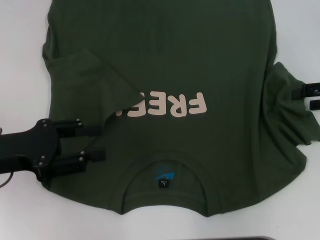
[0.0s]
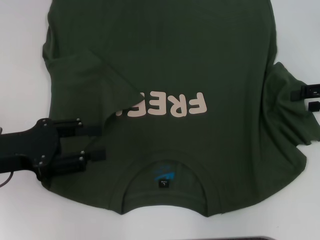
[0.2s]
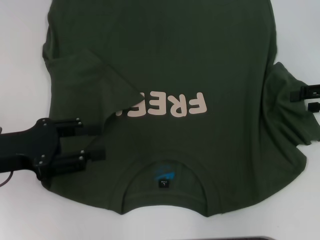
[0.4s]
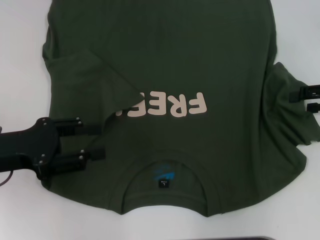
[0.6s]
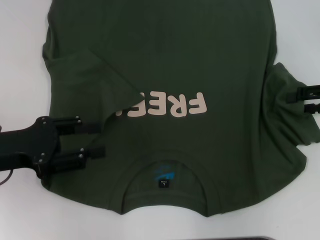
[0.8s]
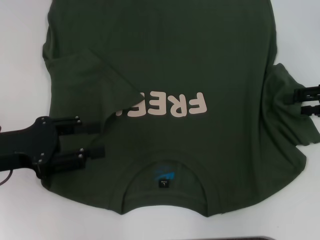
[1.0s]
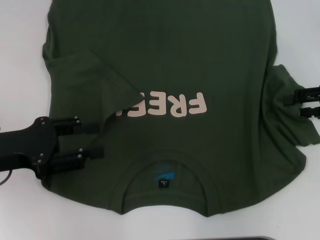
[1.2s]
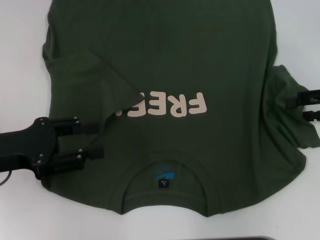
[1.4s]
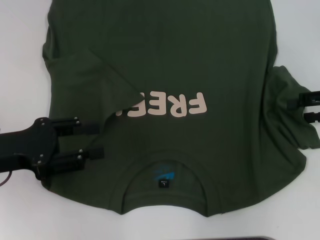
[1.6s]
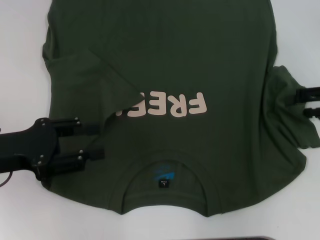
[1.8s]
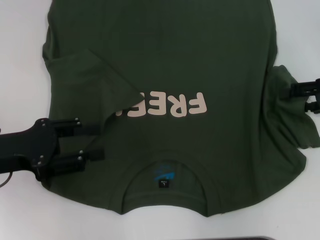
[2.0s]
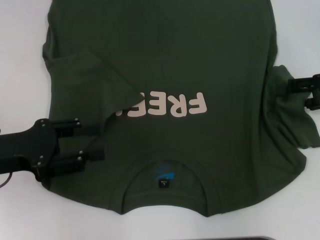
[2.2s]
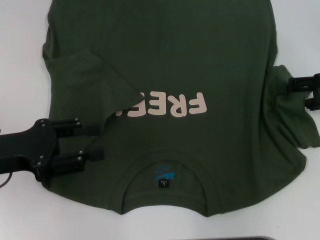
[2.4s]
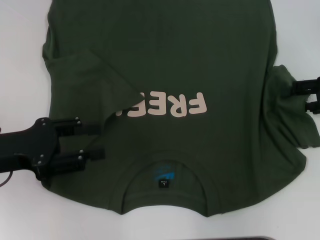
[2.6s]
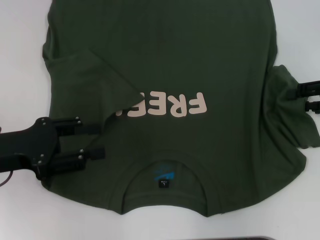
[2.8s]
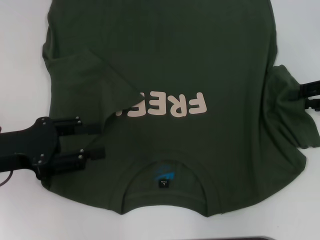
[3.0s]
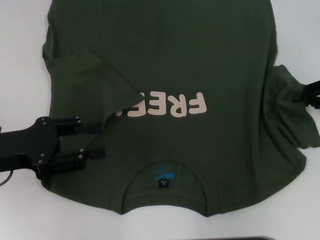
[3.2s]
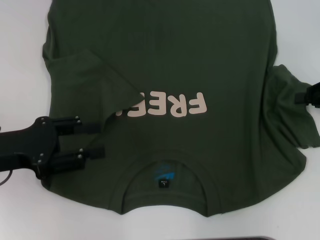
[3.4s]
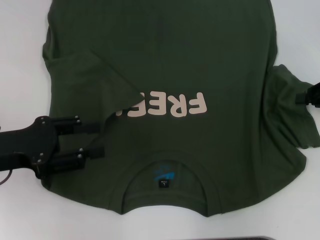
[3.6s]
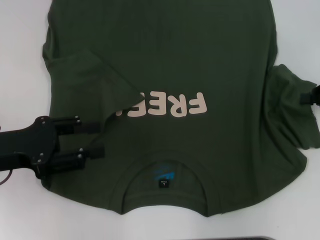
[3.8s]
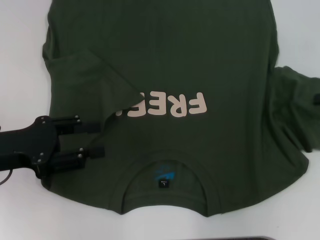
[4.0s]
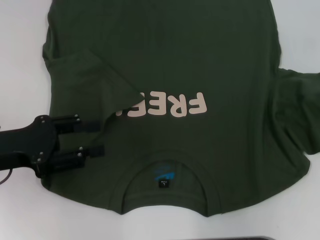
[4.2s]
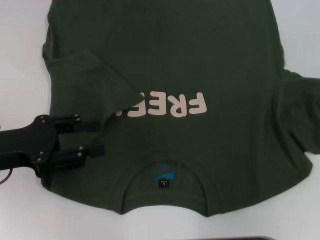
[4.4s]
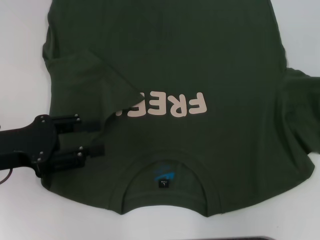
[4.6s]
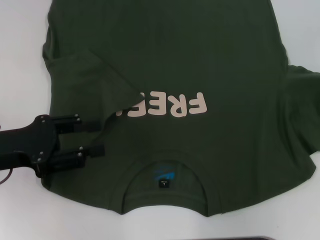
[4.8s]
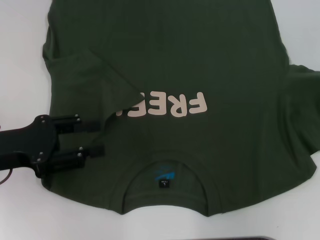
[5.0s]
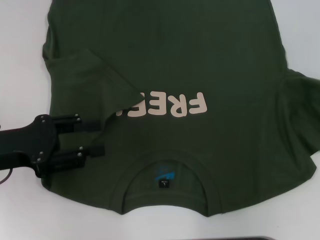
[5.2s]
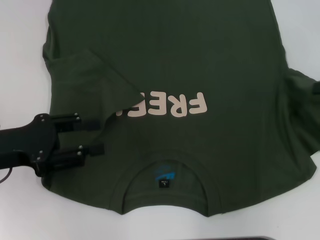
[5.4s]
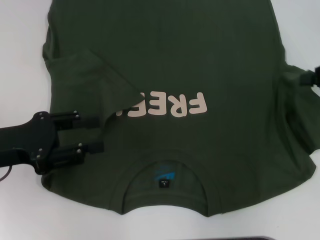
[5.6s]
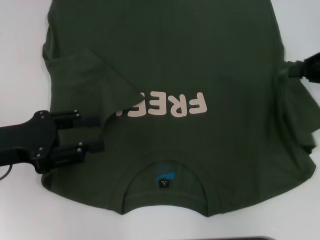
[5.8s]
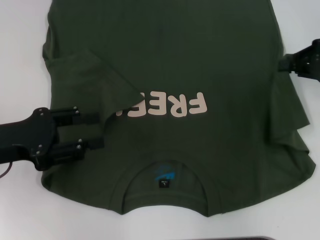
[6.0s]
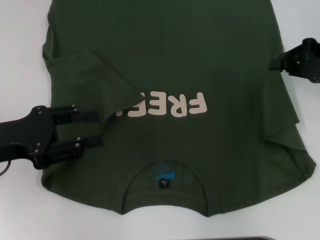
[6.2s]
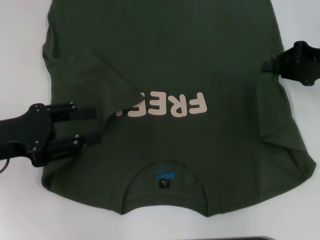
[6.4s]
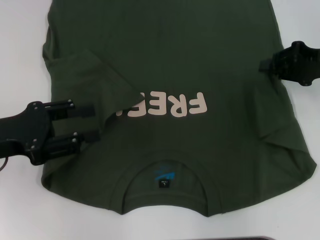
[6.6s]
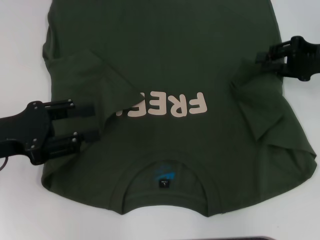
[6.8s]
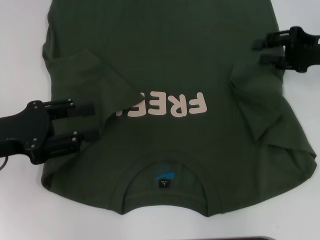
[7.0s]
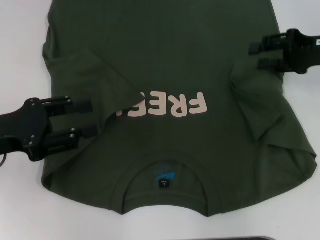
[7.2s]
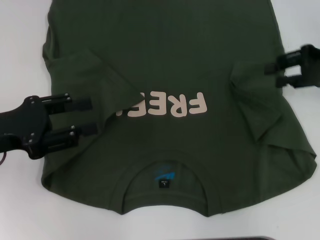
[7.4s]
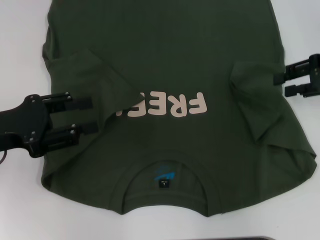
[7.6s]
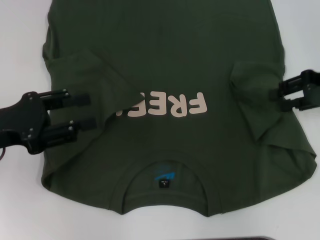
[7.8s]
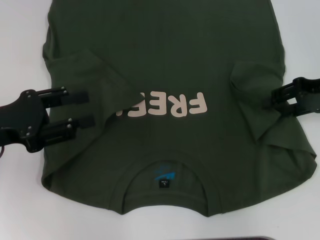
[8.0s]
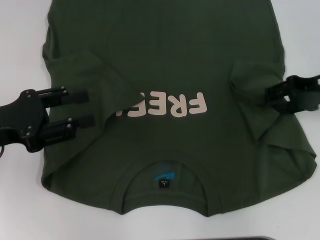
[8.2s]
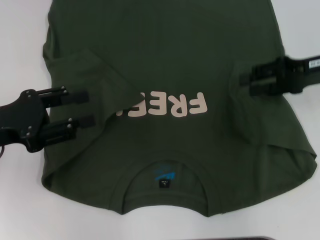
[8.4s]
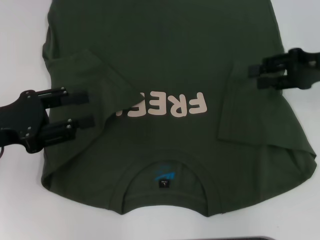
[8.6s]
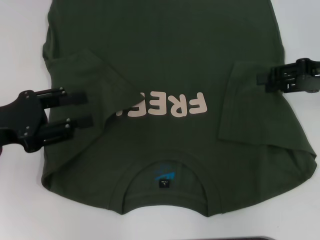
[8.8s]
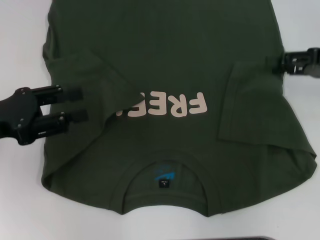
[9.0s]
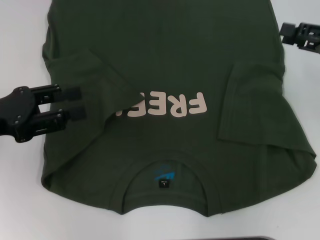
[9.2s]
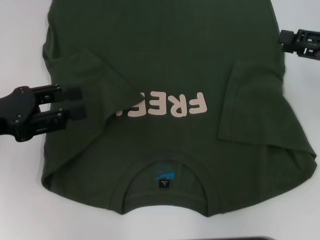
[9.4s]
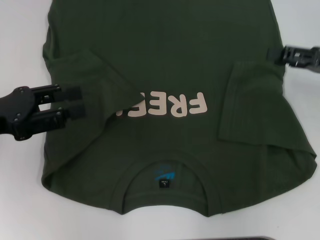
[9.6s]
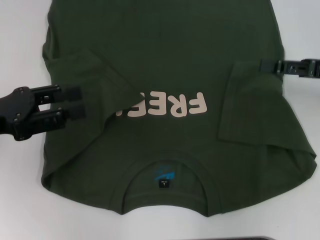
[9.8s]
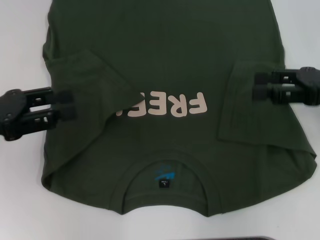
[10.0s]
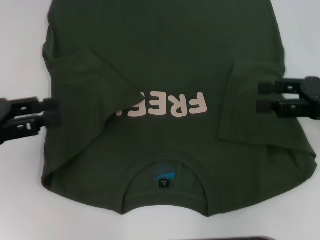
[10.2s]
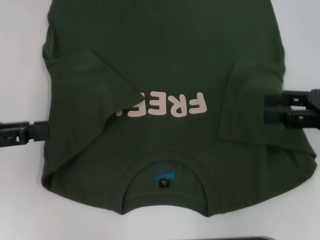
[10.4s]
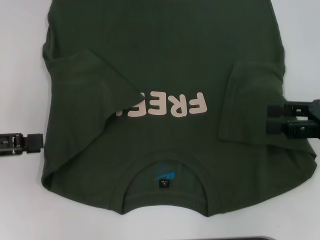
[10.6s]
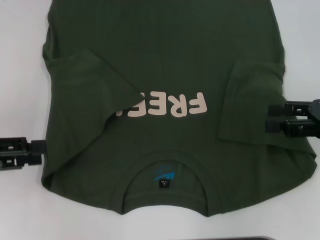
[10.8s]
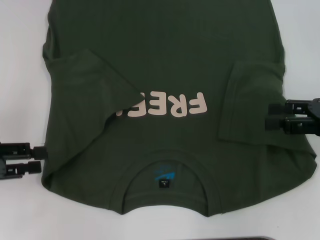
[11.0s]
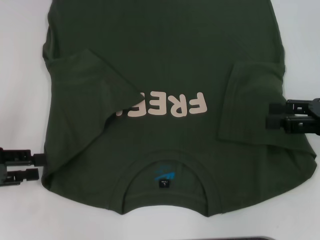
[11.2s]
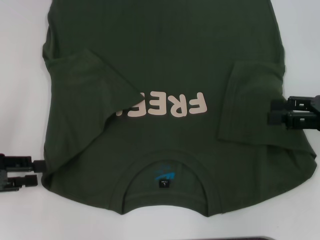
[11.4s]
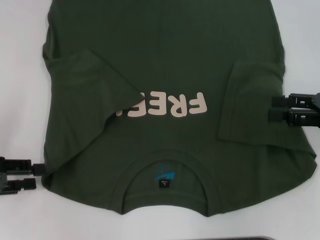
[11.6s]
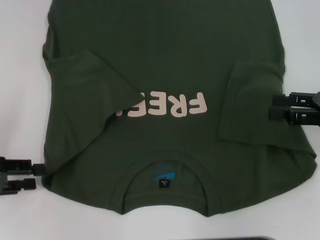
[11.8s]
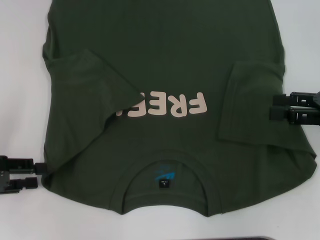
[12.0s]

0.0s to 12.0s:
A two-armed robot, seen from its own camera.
Step, 0.0s to 10.2s: Fold the bottom right sleeve with your right hand.
0.0s to 3.0s: The grippers stay close to where they were, moving slightly.
3.0s to 4.4s: The right gripper shifts by some 5 cm, and closes its fingers.
4.4s to 6.0s: The right gripper heads to the left, covering some 5 cm.
6.0s to 7.6s: The right gripper opens.
9.0s to 10.4s: The right gripper shifts some 5 cm backward.
10.4s to 12.0s: The left gripper moves downward, roughly 5 cm.

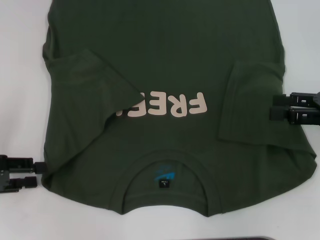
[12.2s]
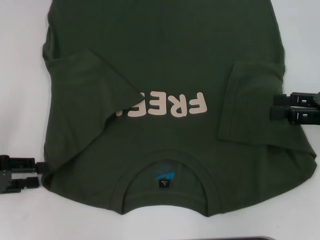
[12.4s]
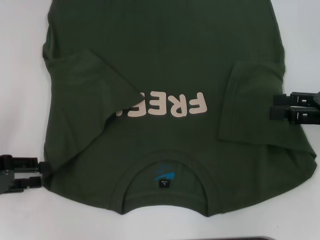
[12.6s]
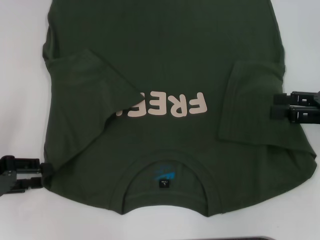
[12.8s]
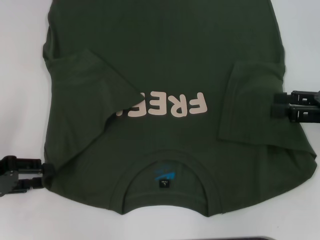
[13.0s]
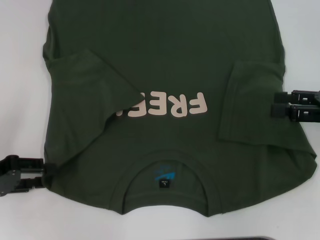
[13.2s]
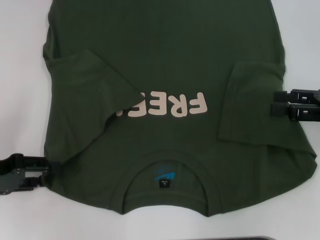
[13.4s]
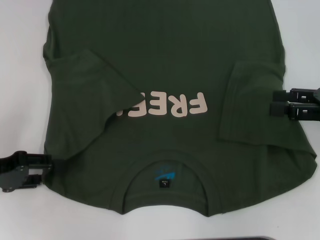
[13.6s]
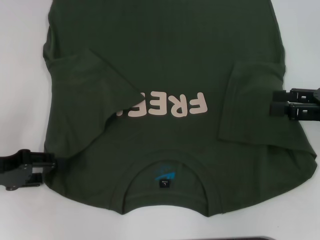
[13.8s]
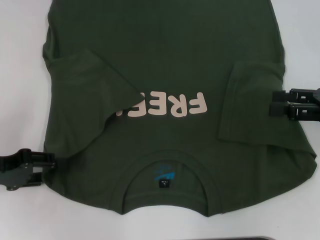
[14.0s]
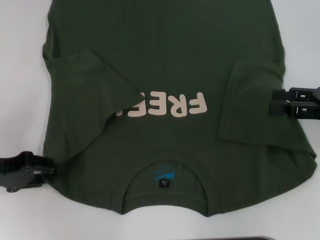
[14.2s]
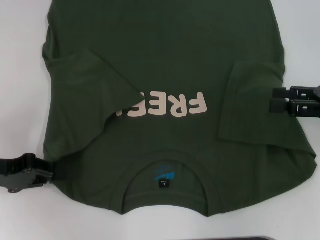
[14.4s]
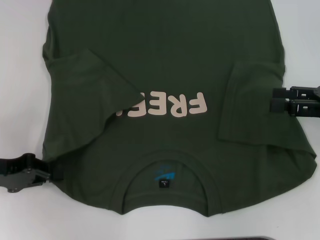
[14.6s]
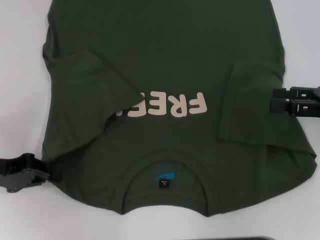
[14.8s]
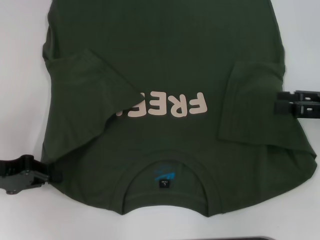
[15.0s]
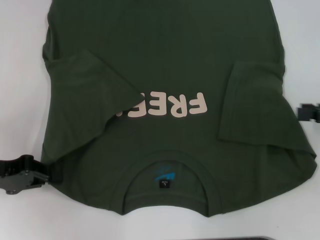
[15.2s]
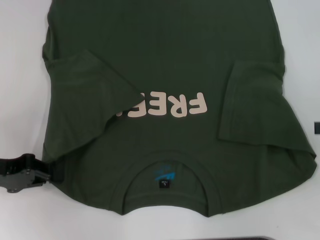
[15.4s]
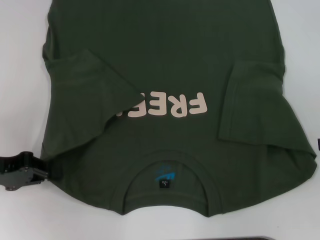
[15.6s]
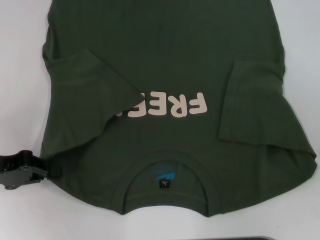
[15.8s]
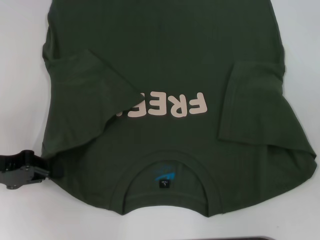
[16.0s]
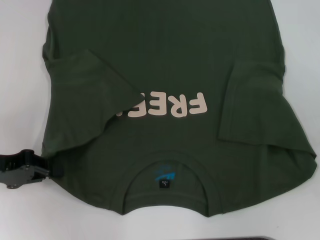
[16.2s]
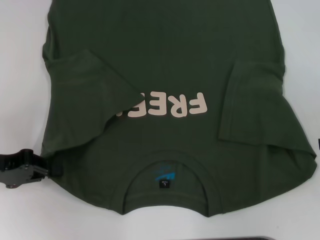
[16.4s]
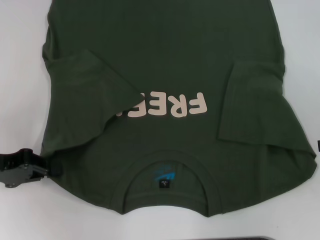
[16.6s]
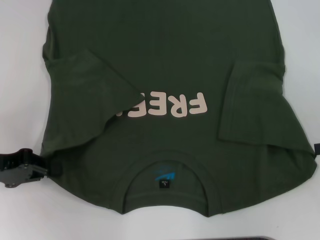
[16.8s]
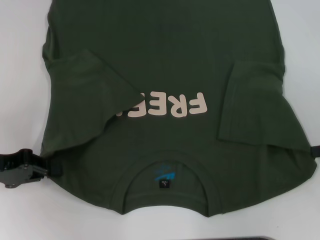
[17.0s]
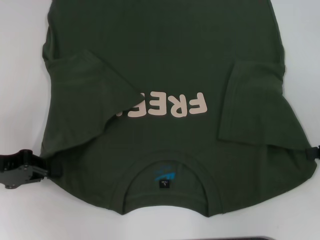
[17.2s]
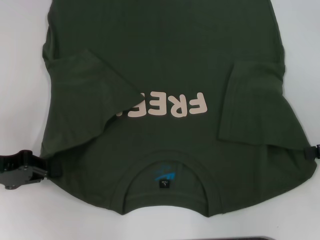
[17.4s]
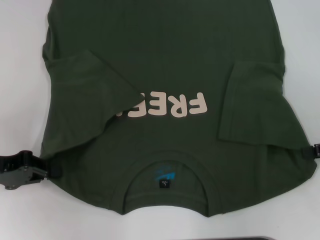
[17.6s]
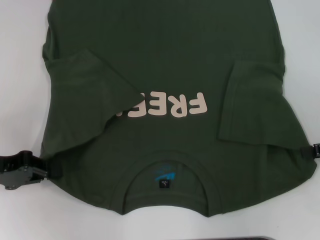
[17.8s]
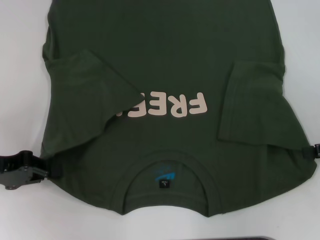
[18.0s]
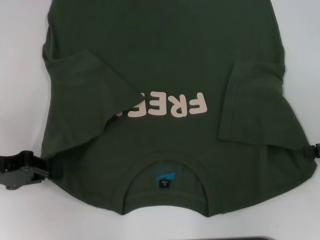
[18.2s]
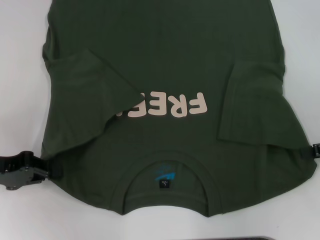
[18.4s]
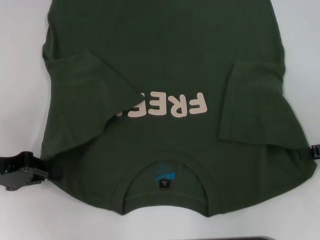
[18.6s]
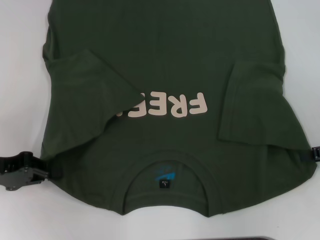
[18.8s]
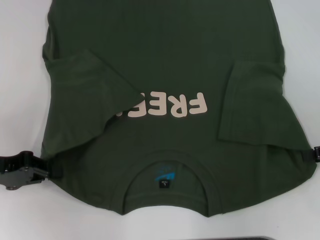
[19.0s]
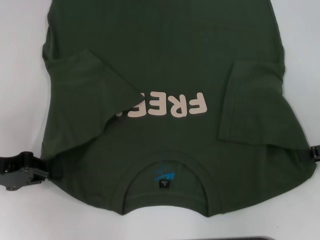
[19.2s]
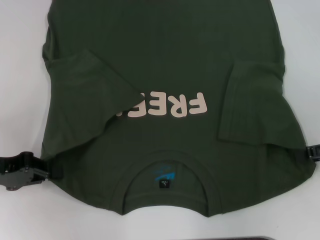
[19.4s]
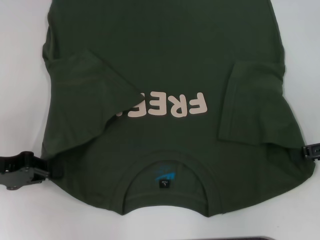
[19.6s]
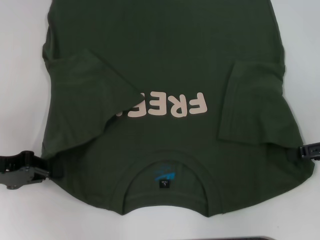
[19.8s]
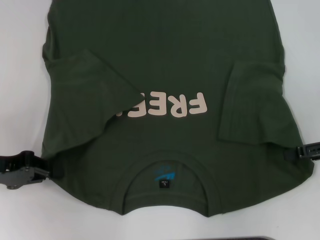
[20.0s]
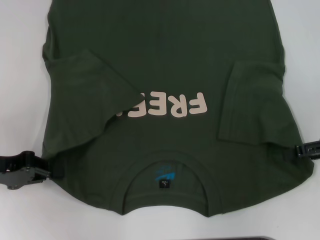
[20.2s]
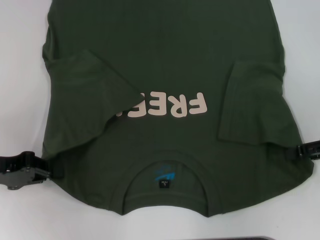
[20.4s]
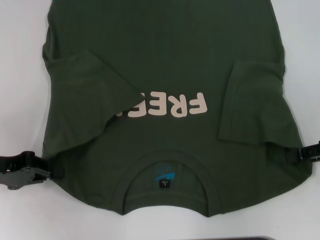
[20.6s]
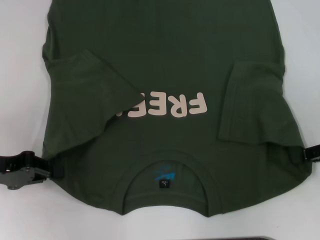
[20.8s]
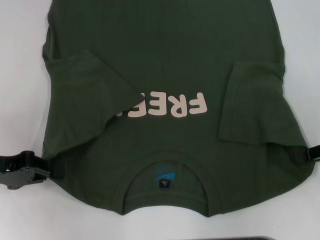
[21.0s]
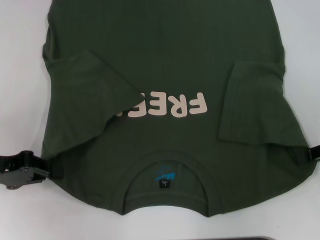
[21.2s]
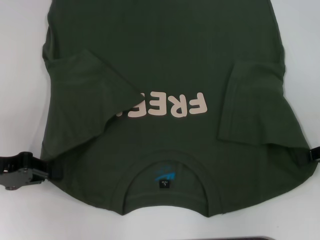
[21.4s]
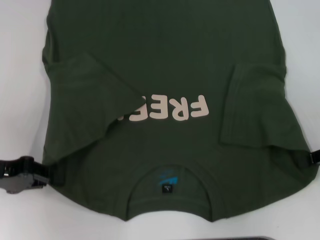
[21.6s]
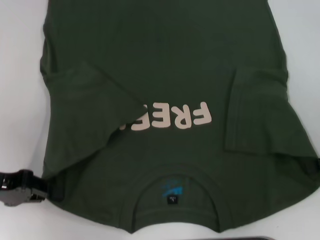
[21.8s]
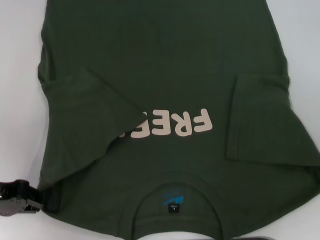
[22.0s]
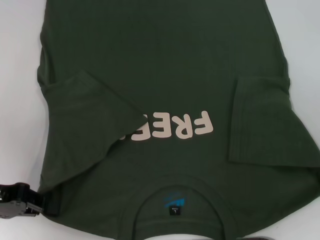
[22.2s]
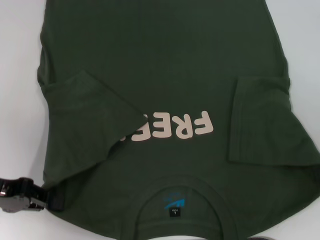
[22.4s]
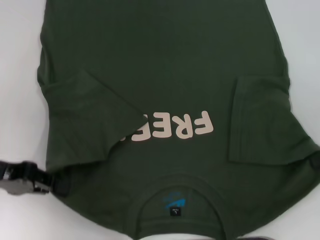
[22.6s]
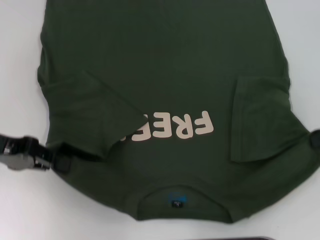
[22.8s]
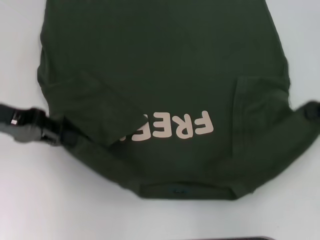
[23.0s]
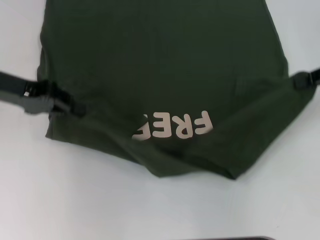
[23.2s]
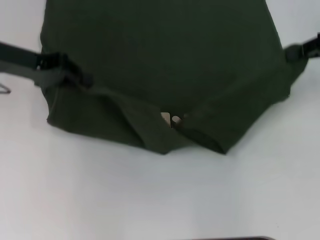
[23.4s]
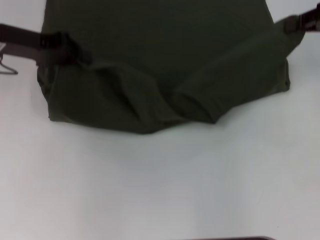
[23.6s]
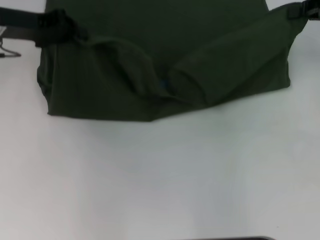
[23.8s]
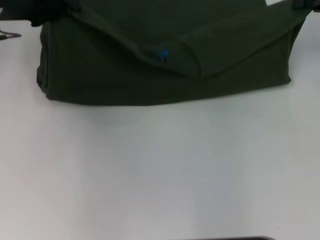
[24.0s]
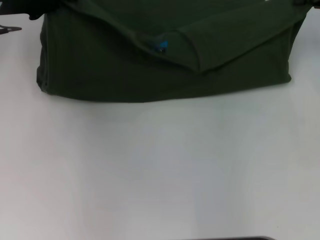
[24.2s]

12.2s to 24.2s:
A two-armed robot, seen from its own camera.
Step, 12.2s to 16.6s: Grab the bottom left corner with your left hand.
12.2s to 13.8s: There are only small adjustments of the grippers.
13.8s to 15.2s: The left gripper closes its fingers.
16.6s to 18.2s: The grippers stay close to where they were, moving slightly.
21.2s to 22.6s: The grippers stay close to where they were, moving slightly.
22.6s to 24.2s: The left gripper shifts approximately 15 cm forward. The right gripper travels forward and upward by some 15 cm.
